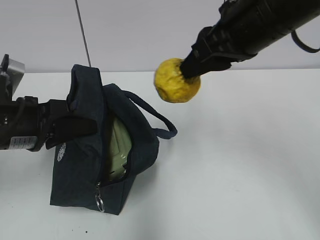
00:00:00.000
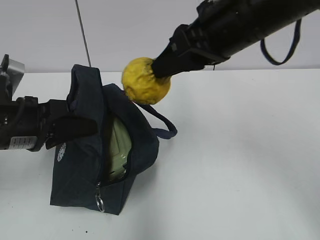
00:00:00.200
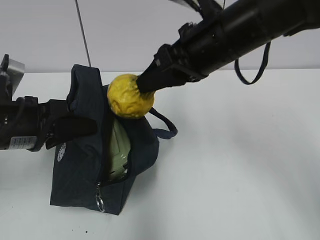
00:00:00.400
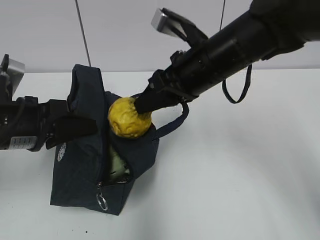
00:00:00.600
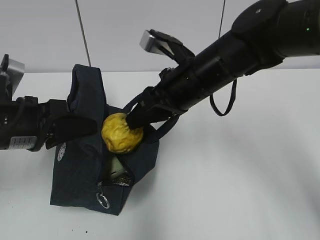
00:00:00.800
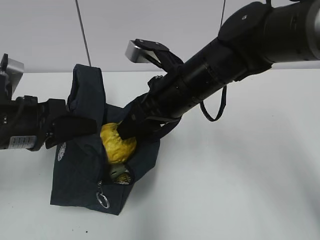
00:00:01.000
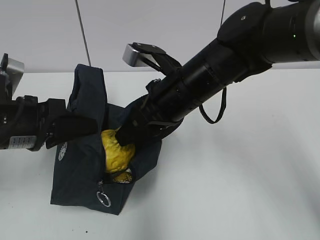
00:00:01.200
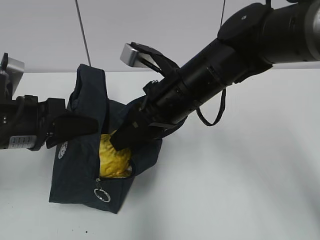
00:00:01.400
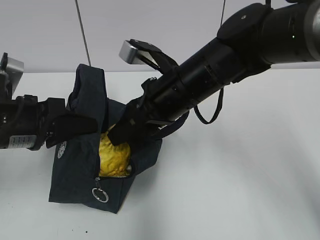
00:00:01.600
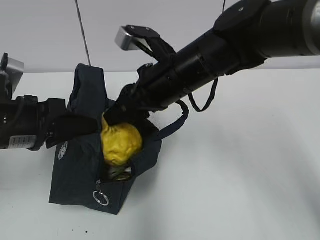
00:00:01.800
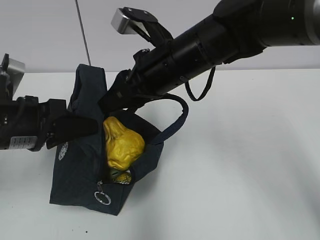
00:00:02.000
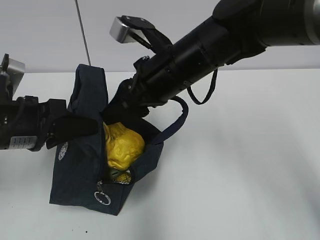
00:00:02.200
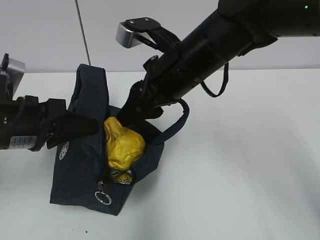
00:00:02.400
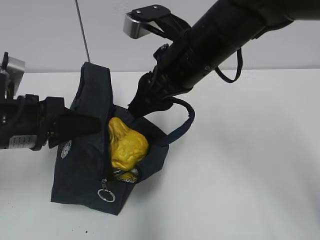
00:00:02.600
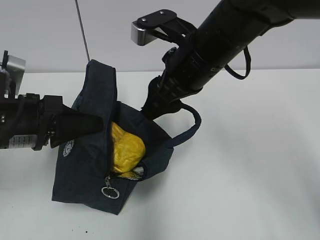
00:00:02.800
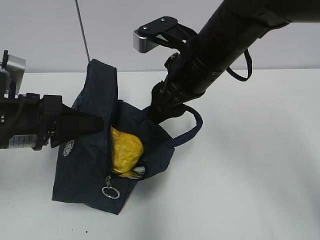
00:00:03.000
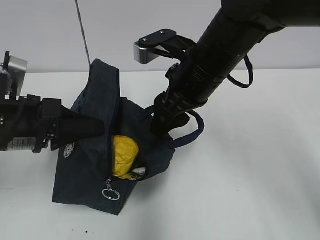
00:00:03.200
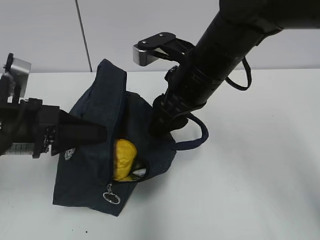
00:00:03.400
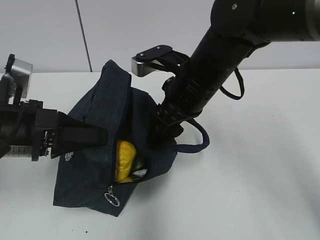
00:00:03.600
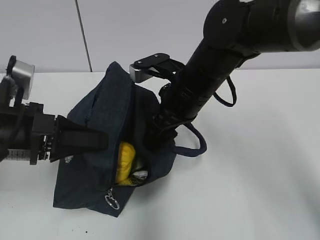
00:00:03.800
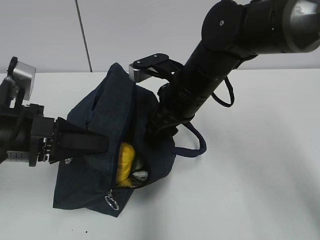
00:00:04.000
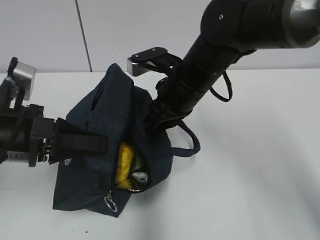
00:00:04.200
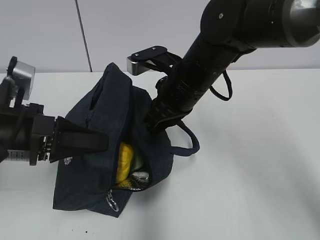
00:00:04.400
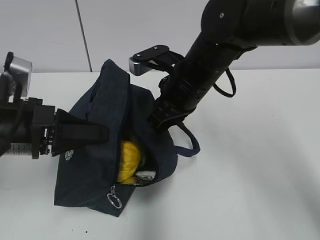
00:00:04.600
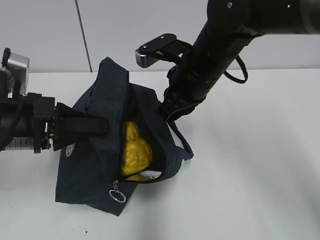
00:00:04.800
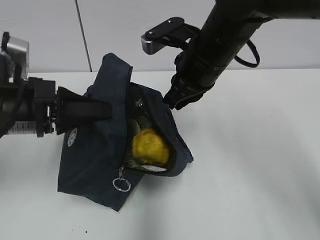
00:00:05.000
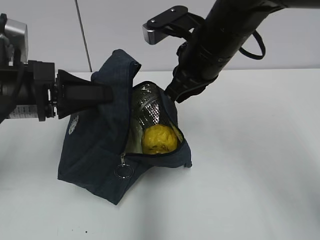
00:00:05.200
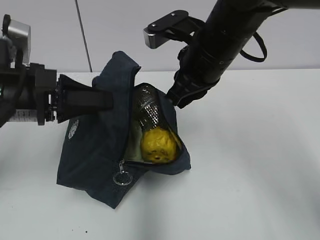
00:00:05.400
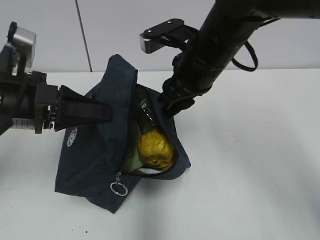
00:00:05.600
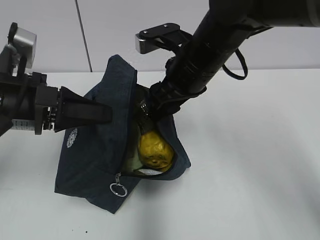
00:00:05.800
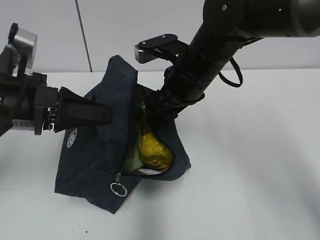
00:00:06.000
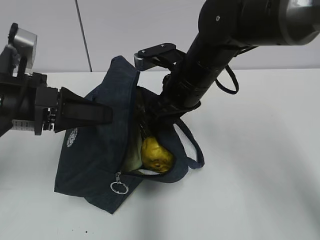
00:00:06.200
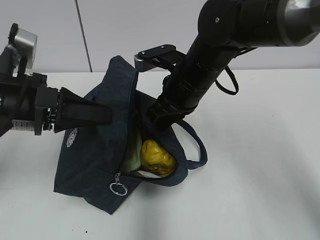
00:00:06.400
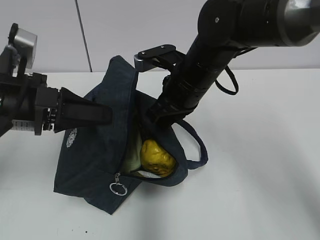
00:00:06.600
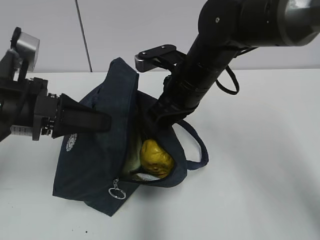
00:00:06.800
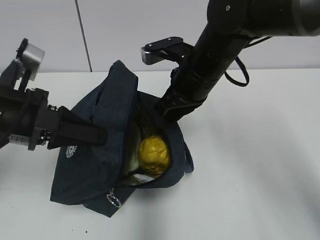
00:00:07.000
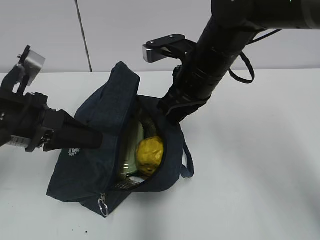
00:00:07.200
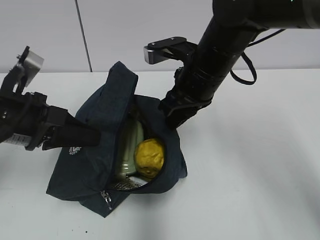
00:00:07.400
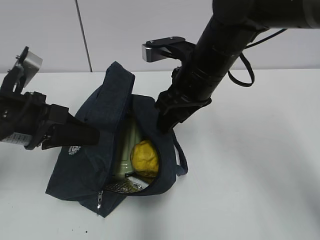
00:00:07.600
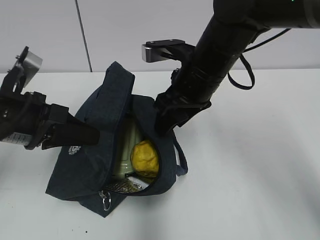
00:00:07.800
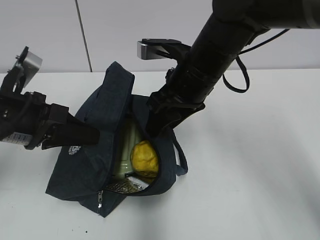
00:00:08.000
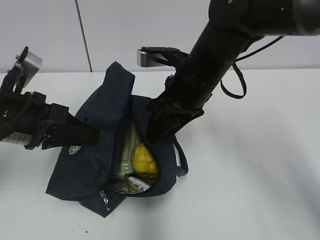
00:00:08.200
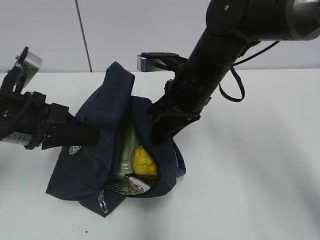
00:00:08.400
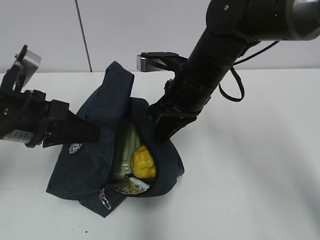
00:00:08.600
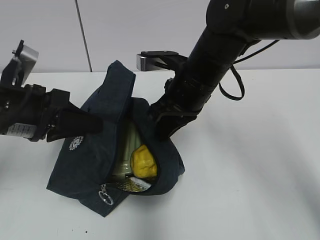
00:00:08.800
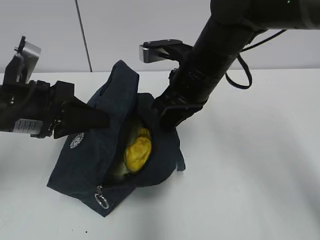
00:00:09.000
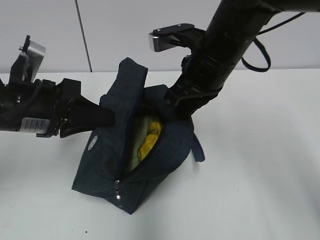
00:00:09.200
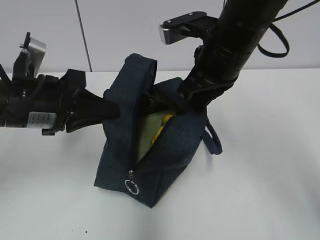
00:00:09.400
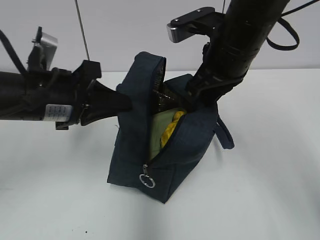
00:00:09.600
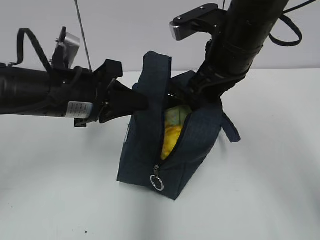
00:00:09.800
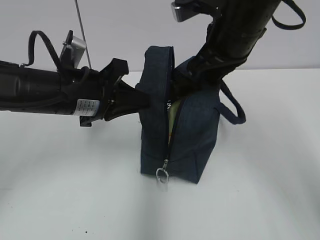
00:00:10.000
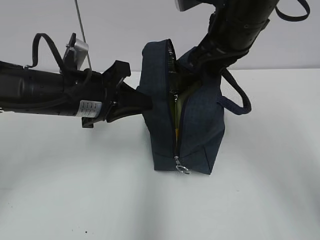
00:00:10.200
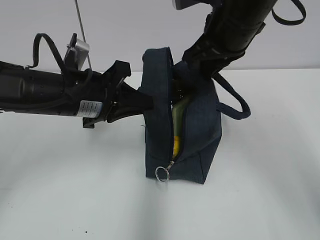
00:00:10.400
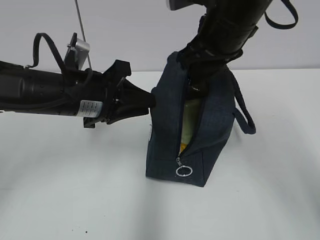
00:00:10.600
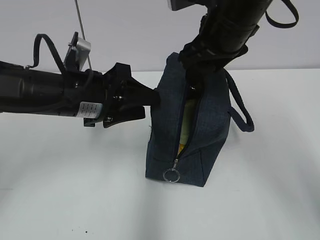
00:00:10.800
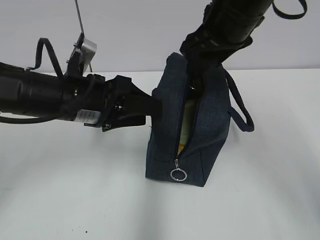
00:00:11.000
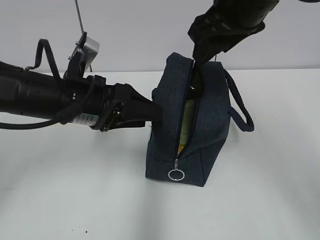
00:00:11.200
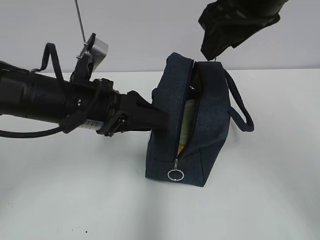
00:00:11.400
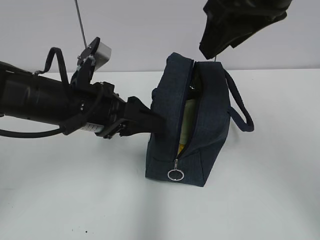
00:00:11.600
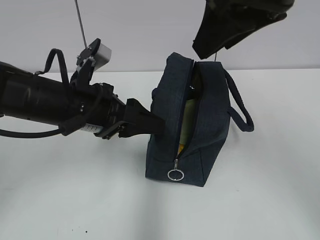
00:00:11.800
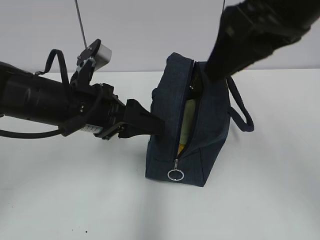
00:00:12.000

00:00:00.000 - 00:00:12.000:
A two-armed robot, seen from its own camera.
00:00:00.000 - 00:00:01.600: The right gripper travels downward and to the left by some 15 cm.
00:00:03.000 - 00:00:04.400: The right gripper ends up about 5 cm from where it was, and closes up.
00:00:04.400 - 00:00:06.000: The right gripper opens up.
00:00:06.000 - 00:00:07.600: The right gripper closes, then reopens.
00:00:07.600 - 00:00:09.000: The right gripper closes up.
00:00:09.000 - 00:00:10.400: The left gripper goes approximately 5 cm to the right; the right gripper goes roughly 5 cm upward.
00:00:10.400 - 00:00:12.000: The right gripper goes roughly 10 cm backward and upward, and opens up. Meanwhile the left gripper opens.

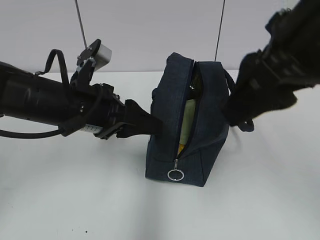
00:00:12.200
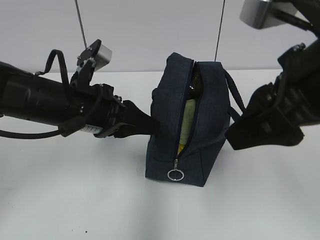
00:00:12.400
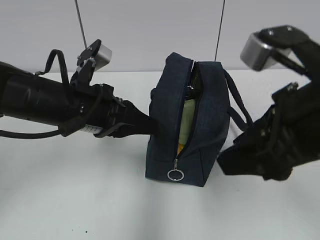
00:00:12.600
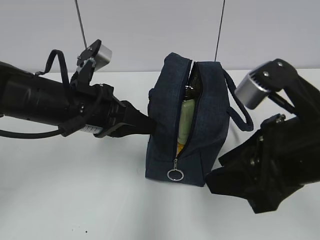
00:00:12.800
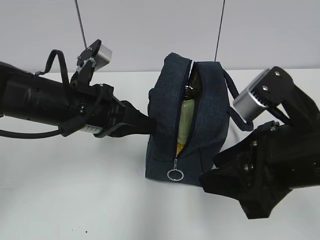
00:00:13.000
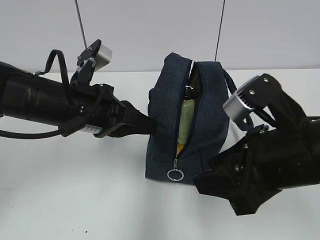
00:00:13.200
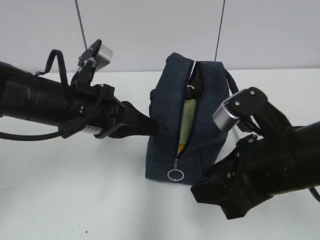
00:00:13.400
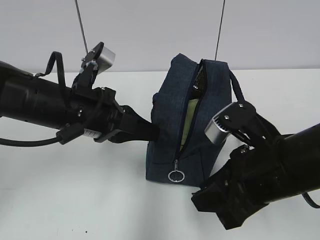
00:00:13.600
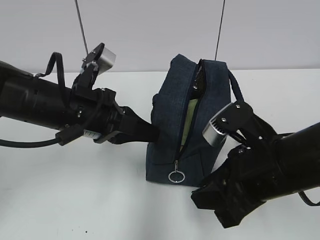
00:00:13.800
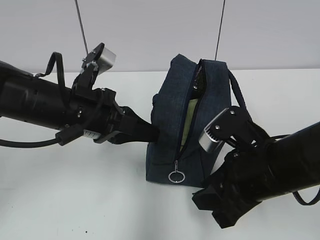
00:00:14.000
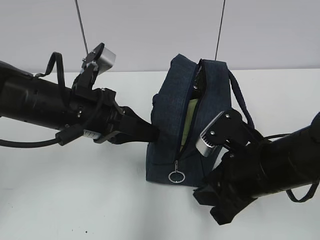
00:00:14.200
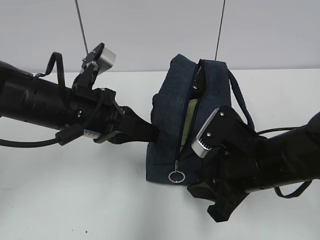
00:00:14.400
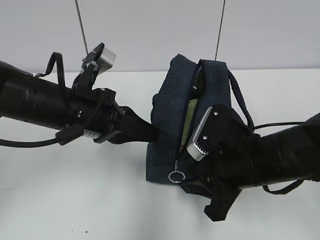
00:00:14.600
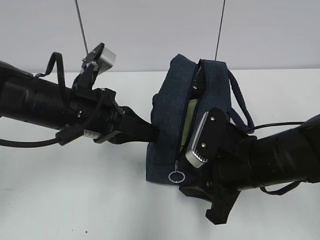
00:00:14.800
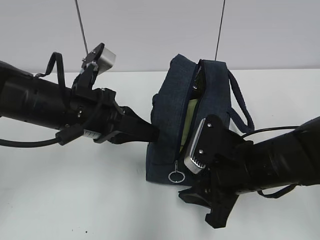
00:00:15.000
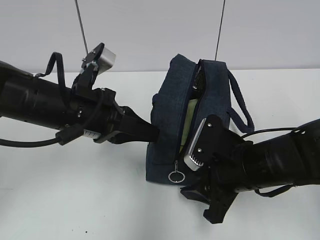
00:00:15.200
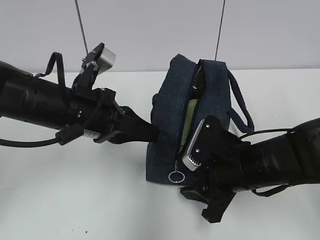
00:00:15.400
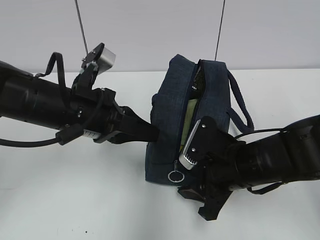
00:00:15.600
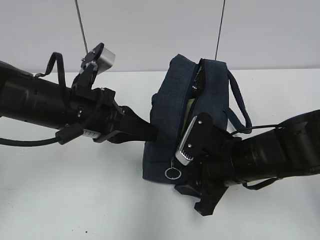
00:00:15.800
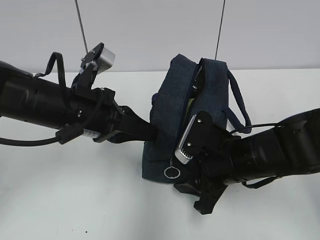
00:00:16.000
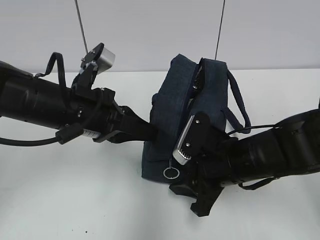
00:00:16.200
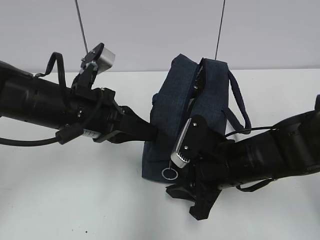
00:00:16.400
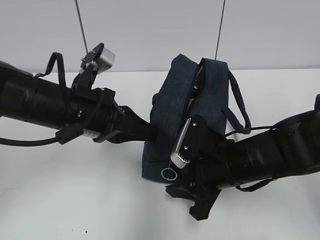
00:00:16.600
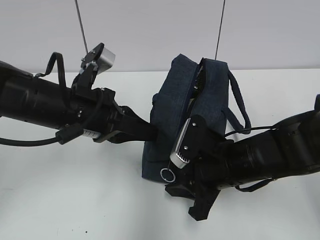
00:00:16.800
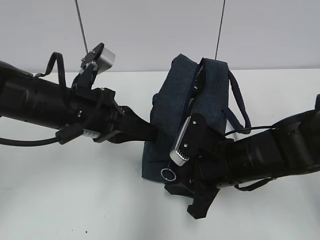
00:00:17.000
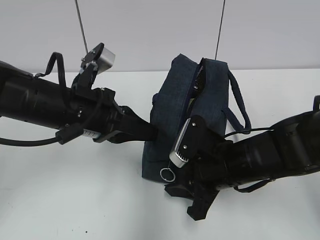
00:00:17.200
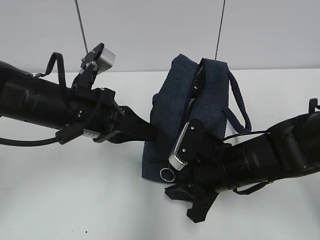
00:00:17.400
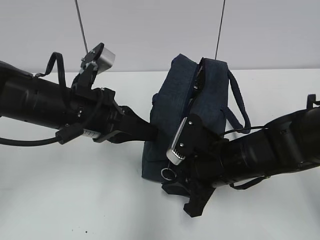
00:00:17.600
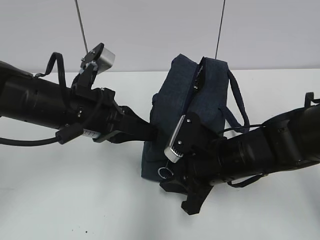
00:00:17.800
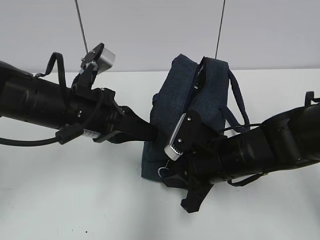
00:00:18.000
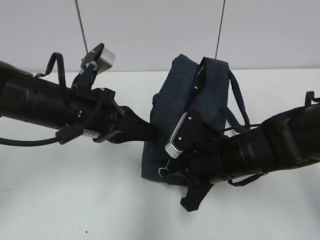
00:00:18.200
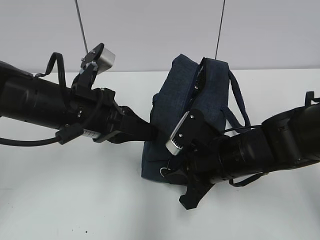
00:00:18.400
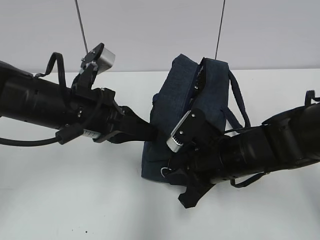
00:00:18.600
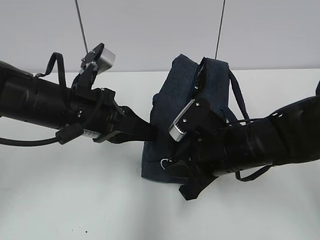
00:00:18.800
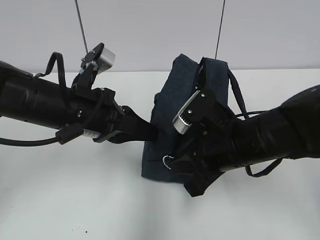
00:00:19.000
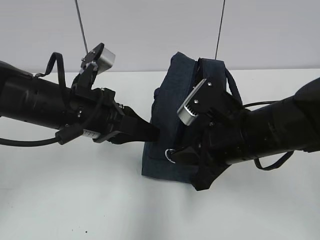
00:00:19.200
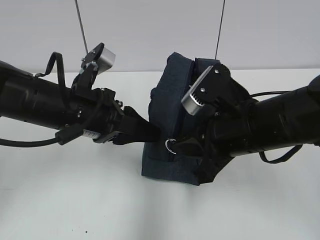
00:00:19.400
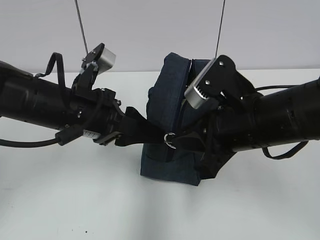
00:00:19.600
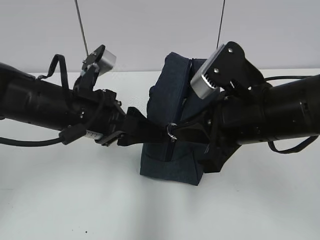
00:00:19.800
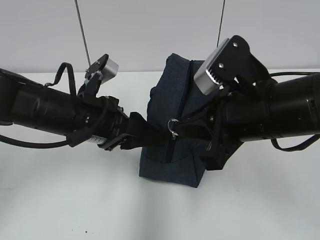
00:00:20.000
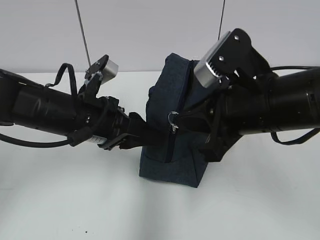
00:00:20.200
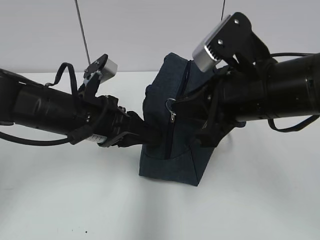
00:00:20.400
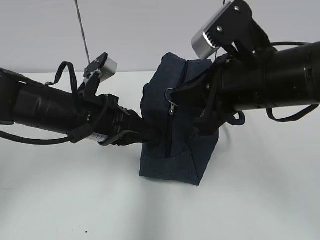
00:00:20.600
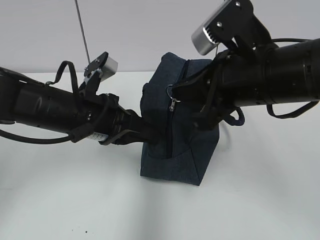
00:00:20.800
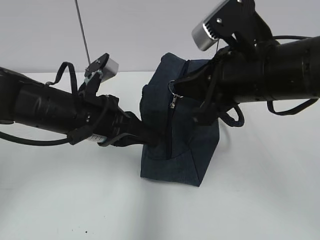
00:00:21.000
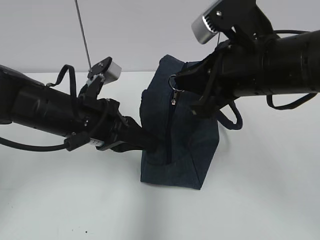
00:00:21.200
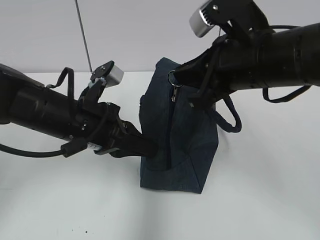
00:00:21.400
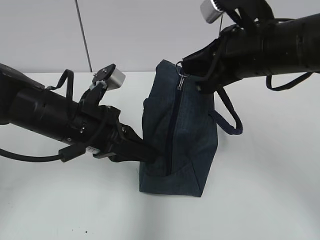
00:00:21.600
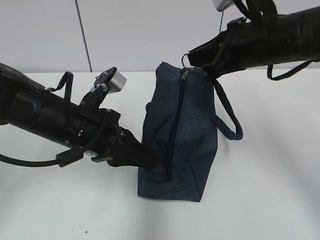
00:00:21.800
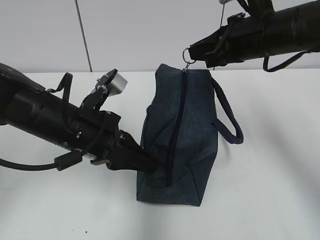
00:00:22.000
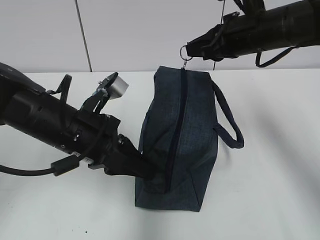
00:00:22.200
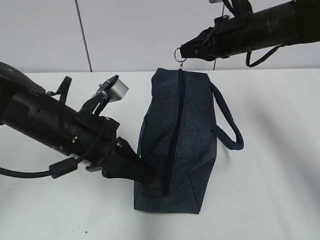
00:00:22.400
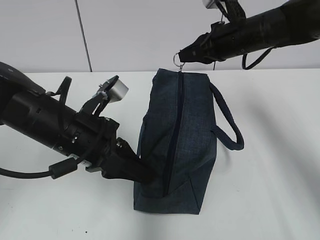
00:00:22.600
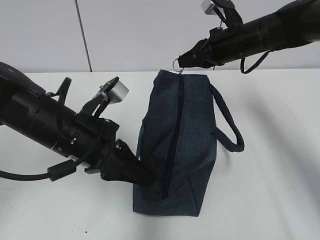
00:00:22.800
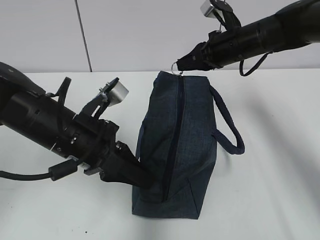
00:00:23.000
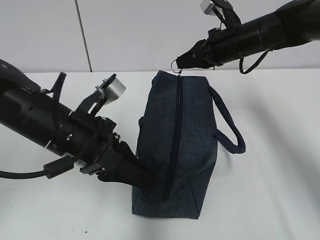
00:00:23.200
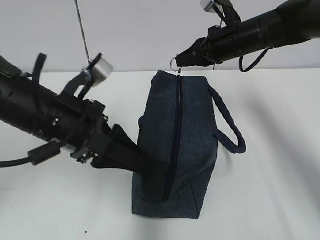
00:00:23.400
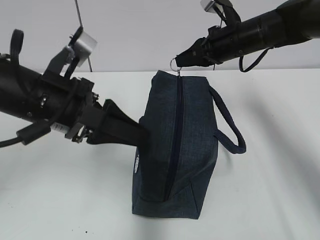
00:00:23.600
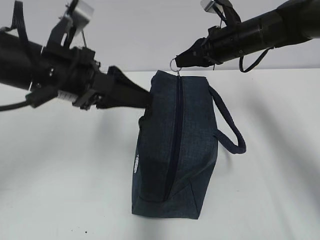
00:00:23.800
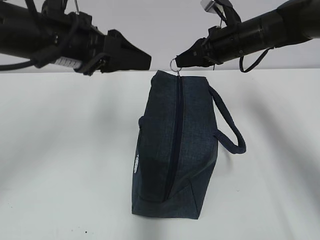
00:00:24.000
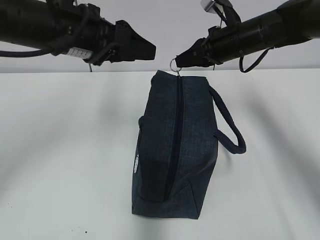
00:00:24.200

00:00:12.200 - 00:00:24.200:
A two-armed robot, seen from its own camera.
00:00:12.200 - 00:00:13.800: The right gripper moves downward, about 15 cm. Meanwhile the left gripper closes.
00:00:13.800 - 00:00:15.200: The right gripper heads downward, covering roughly 5 cm.
00:00:15.200 - 00:00:16.600: The grippers stay close to where they were, moving slightly.
00:00:16.600 - 00:00:18.200: The right gripper closes up.
00:00:18.200 - 00:00:19.800: The right gripper travels upward by about 10 cm. The left gripper opens up.
00:00:19.800 - 00:00:21.200: The right gripper changes place by about 5 cm, while the left gripper closes.
00:00:21.200 - 00:00:22.600: The right gripper travels forward by approximately 20 cm.
00:00:22.600 - 00:00:24.200: The left gripper travels upward and forward by about 15 cm, and opens.
